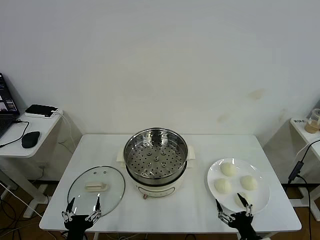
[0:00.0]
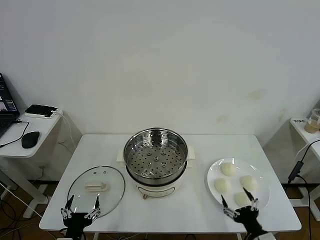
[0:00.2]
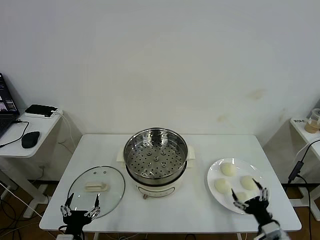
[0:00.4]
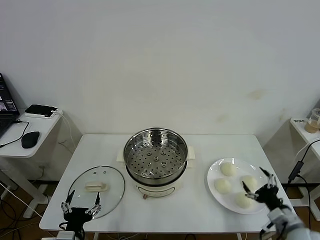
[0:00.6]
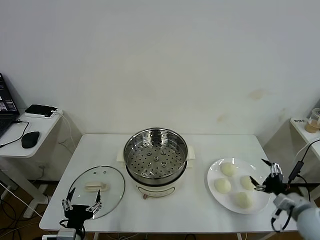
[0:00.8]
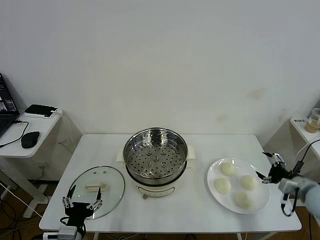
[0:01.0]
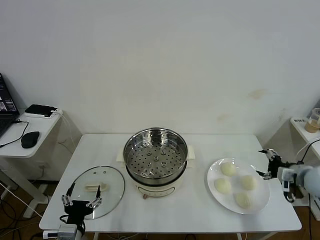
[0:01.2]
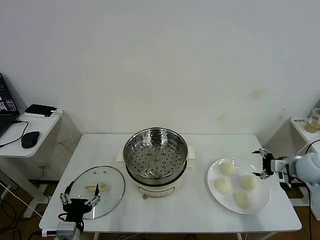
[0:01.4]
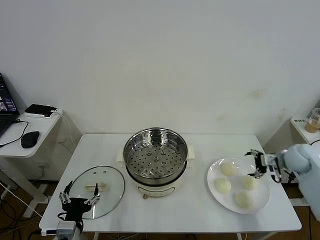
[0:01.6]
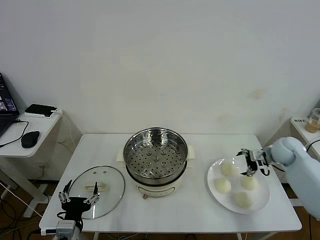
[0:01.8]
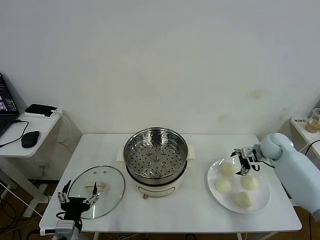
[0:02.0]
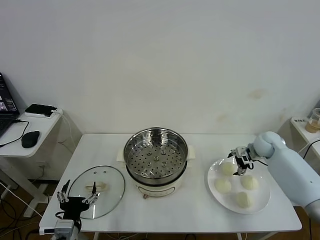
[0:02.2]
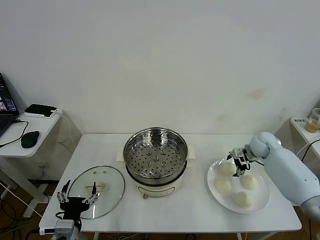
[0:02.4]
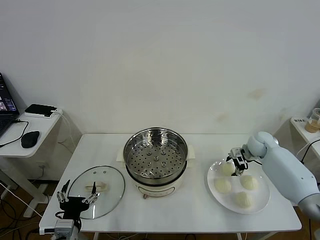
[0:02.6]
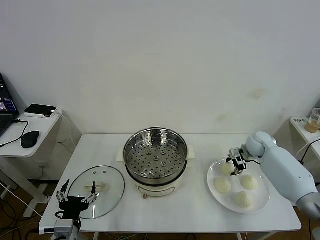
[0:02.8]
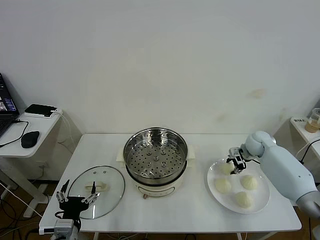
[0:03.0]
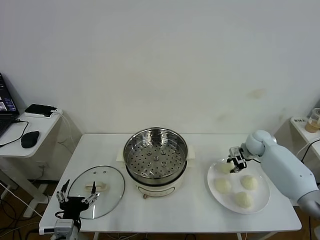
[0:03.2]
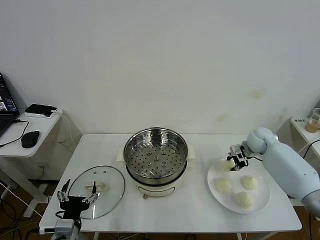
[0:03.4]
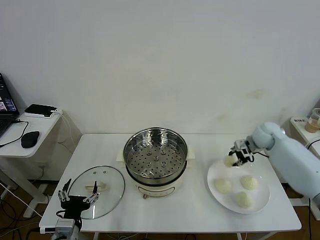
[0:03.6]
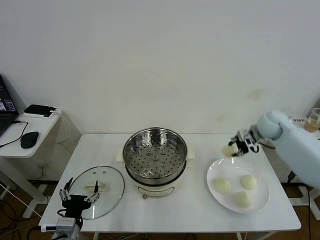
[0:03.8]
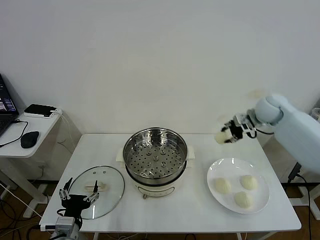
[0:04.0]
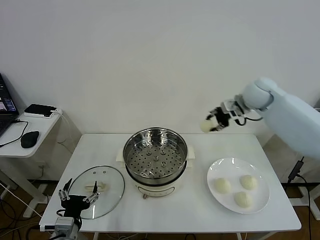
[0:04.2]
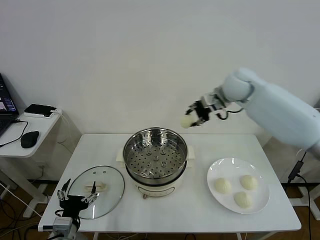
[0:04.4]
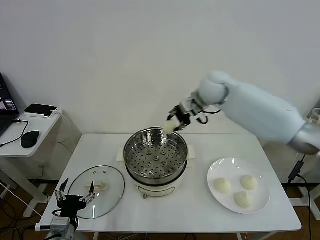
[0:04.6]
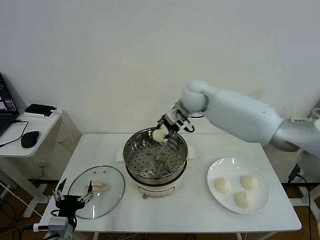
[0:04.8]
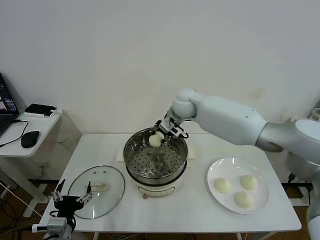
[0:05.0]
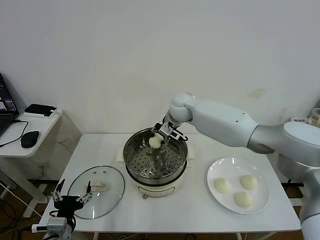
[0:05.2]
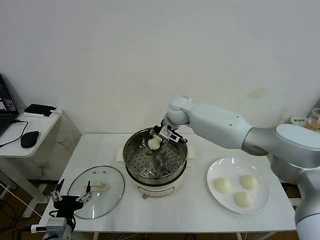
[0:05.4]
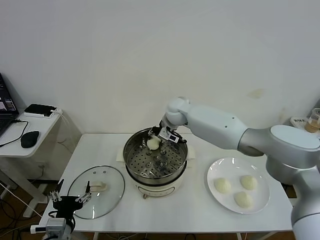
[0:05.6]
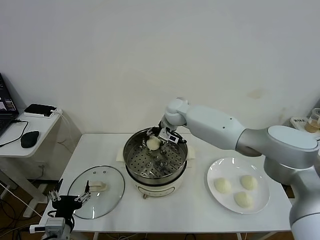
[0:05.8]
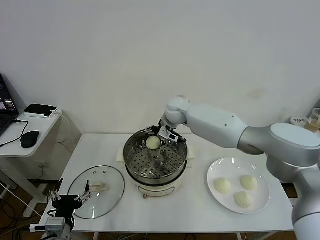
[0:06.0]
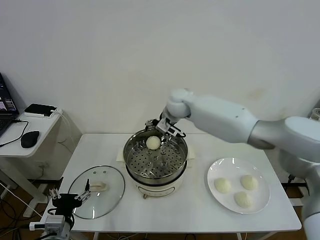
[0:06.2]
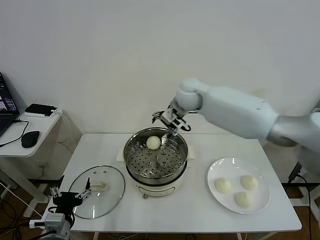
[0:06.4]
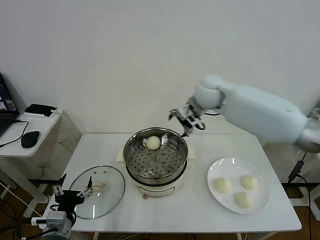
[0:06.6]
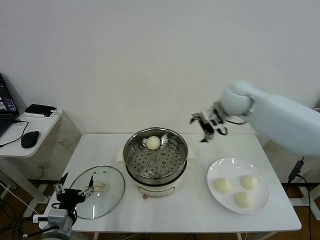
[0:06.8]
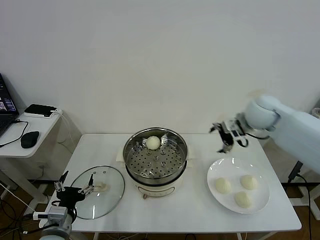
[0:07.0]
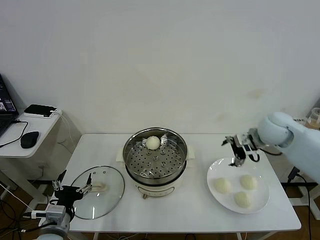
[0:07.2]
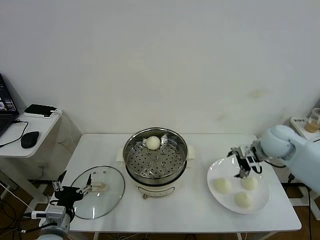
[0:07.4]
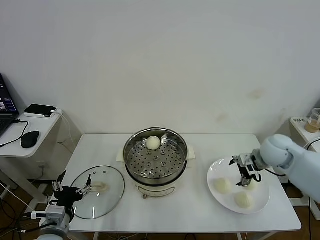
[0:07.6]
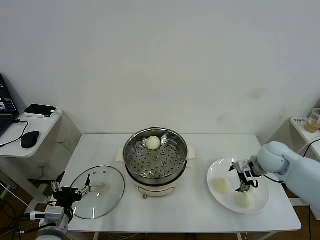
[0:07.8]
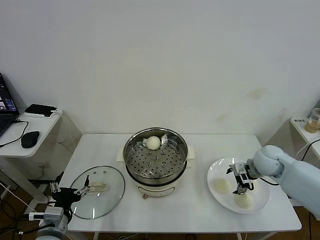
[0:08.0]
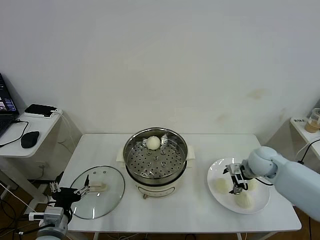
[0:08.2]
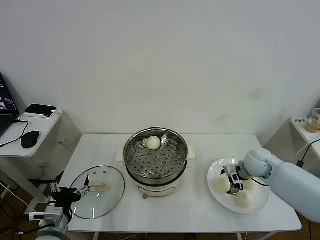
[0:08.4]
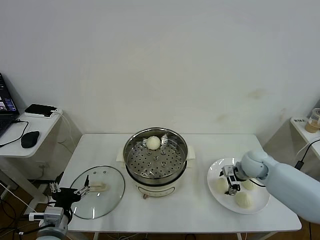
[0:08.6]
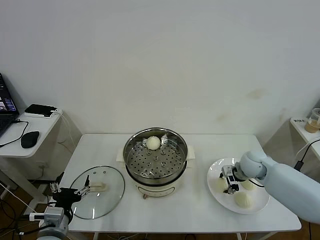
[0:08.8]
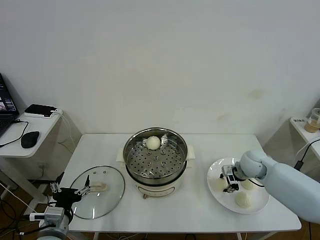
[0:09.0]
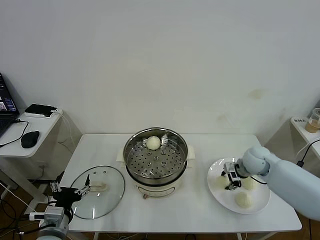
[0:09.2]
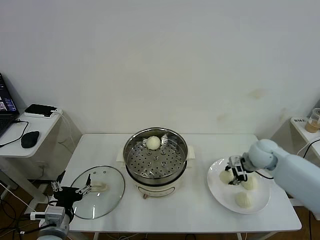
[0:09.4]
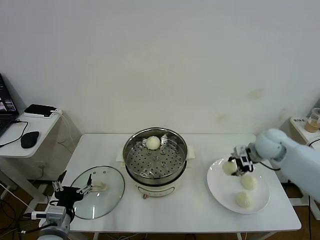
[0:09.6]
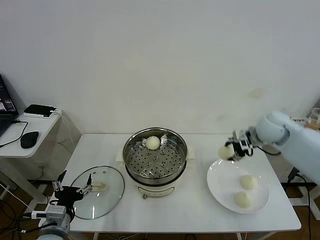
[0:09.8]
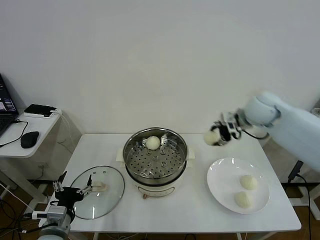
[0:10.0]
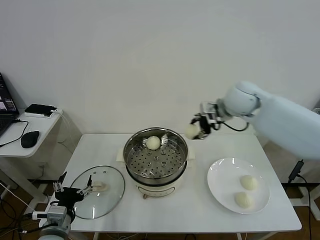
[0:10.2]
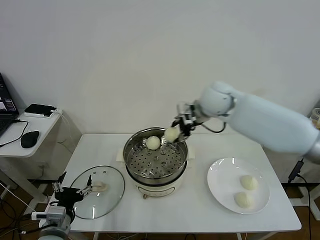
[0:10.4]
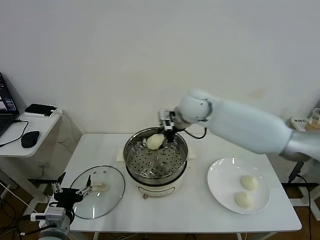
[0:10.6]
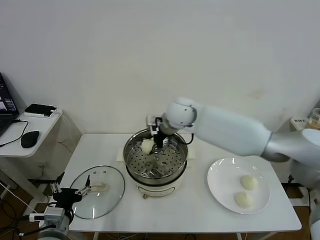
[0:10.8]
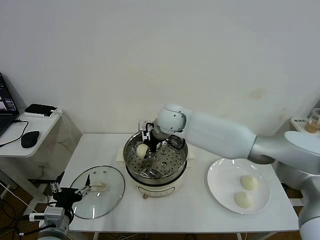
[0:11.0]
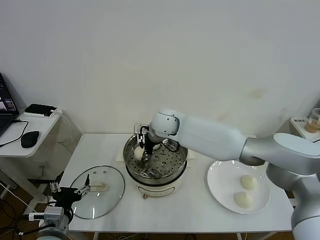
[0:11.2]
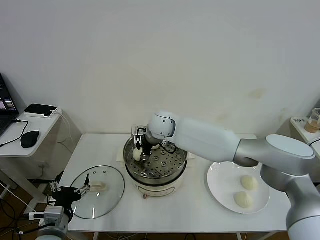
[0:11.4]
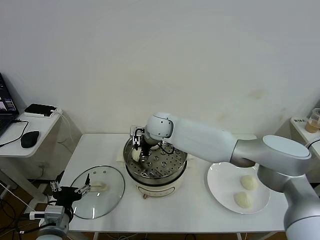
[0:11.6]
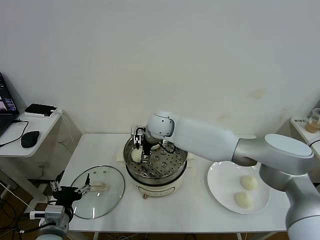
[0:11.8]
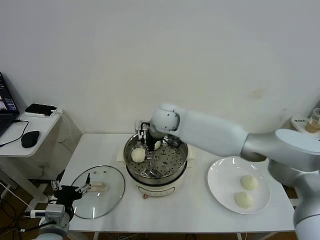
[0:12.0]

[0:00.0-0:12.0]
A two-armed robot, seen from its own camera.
Task of the whole recording: take steamed baozi put them in steamer then cover it.
Step, 0:00.0 to 0:03.0: Grasp the baozi in the plate with right gripper.
Step, 0:03.2 to 0:06.0: Place the baozi on the steamer with right gripper.
Step, 0:06.2 to 0:09.2: Grasp the baozi in the plate with right gripper.
Step, 0:09.4 to 0:12.0: Place the baozi on the steamer with right gripper.
0:01.6 to 0:03.0: The right gripper travels forward and to the left by some 10 cm, and closes up.
0:03.0 to 0:04.4: The right gripper travels upward and to the left by some 30 cm.
0:04.4 to 0:06.0: The right gripper travels to the left and downward by some 15 cm, and opens.
0:06.0 to 0:07.6: The right gripper travels to the right and backward by about 35 cm.
0:07.6 to 0:09.0: The right gripper shifts some 10 cm downward, and closes.
0:09.0 to 0:10.4: The right gripper is displaced upward and to the left by approximately 30 cm.
0:10.4 to 0:12.0: The right gripper goes approximately 15 cm to the left and downward, and opens.

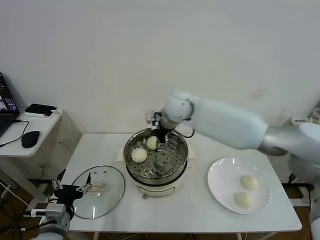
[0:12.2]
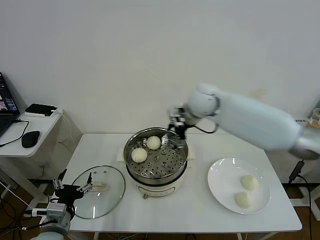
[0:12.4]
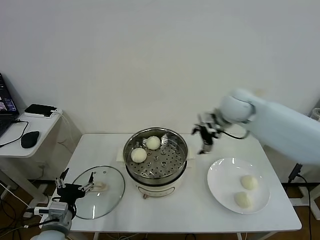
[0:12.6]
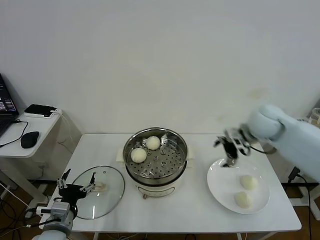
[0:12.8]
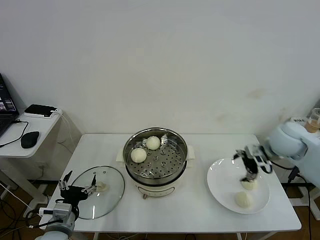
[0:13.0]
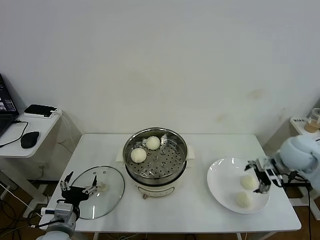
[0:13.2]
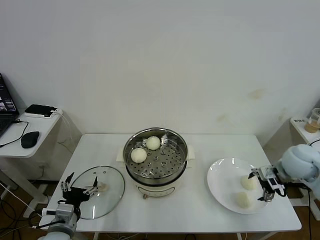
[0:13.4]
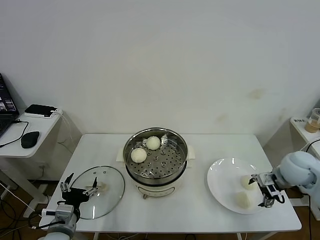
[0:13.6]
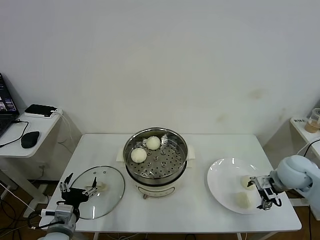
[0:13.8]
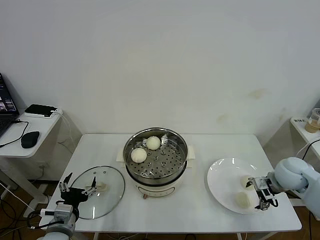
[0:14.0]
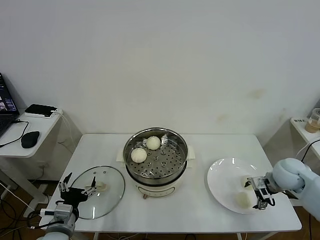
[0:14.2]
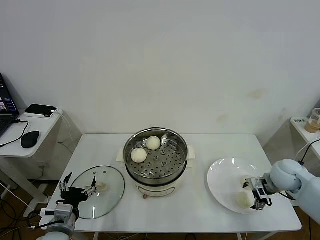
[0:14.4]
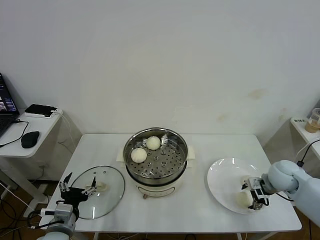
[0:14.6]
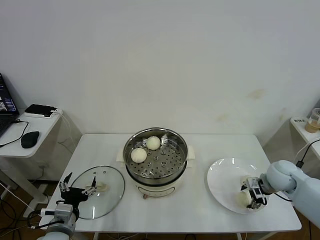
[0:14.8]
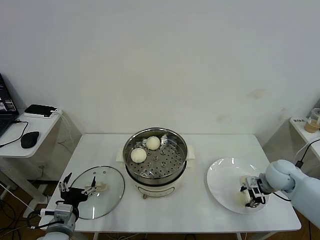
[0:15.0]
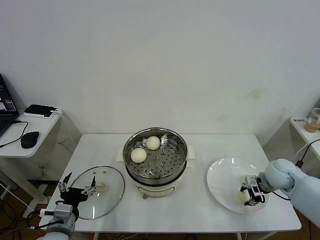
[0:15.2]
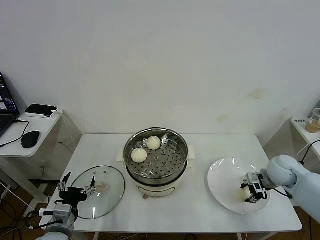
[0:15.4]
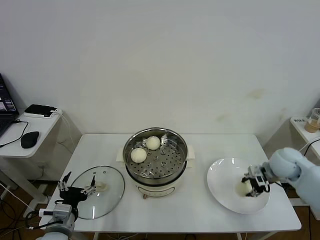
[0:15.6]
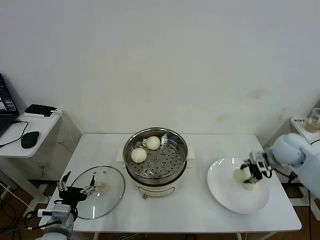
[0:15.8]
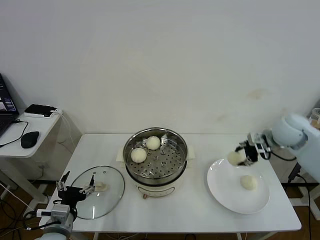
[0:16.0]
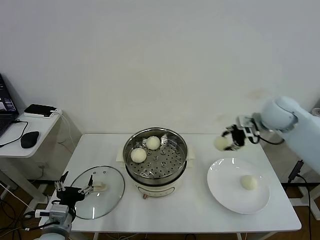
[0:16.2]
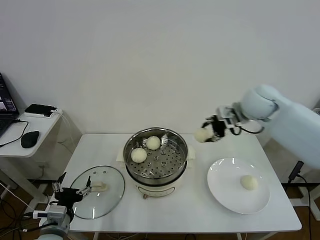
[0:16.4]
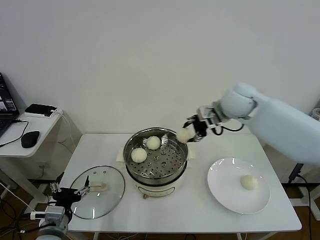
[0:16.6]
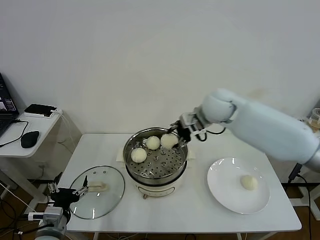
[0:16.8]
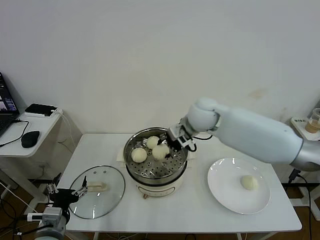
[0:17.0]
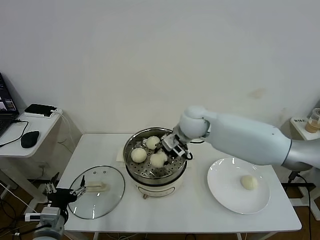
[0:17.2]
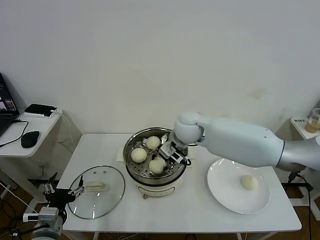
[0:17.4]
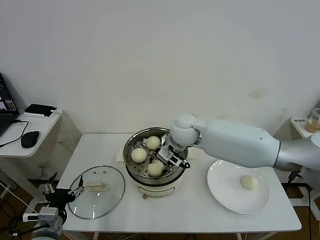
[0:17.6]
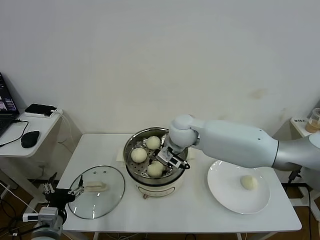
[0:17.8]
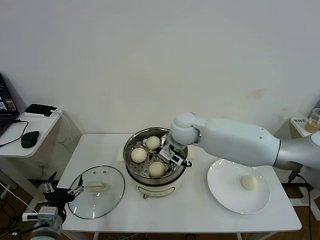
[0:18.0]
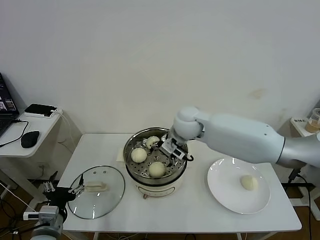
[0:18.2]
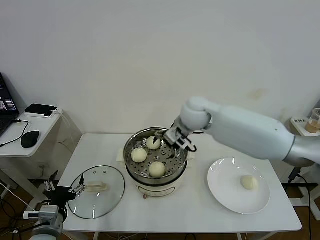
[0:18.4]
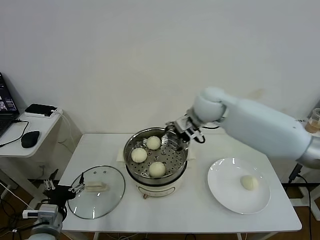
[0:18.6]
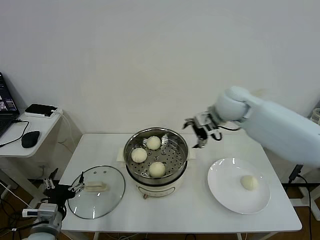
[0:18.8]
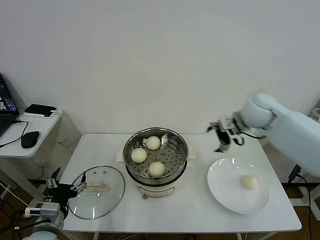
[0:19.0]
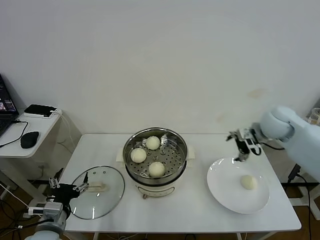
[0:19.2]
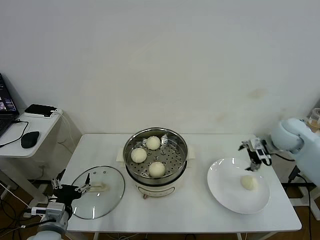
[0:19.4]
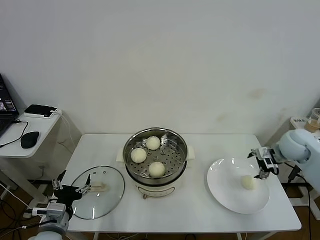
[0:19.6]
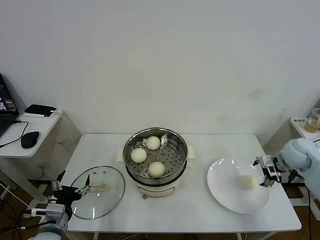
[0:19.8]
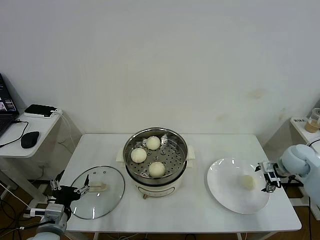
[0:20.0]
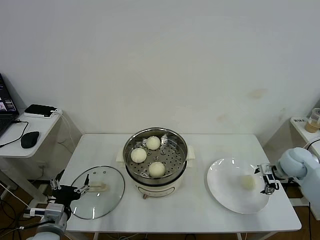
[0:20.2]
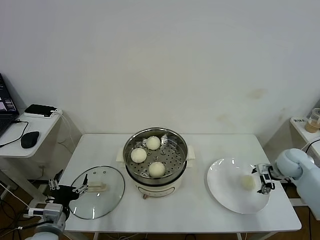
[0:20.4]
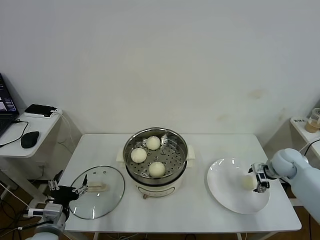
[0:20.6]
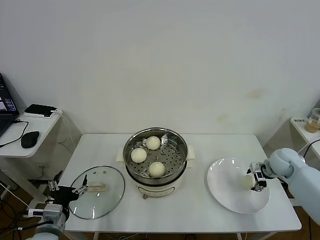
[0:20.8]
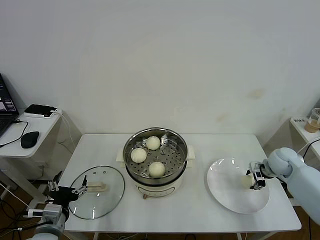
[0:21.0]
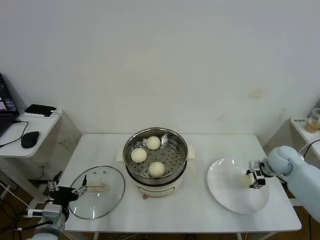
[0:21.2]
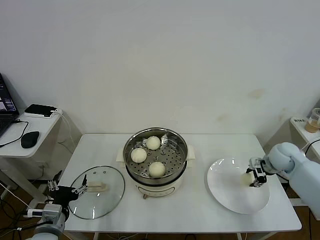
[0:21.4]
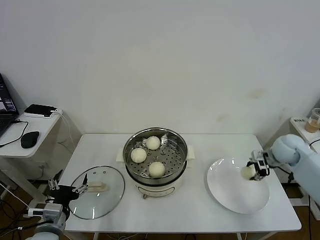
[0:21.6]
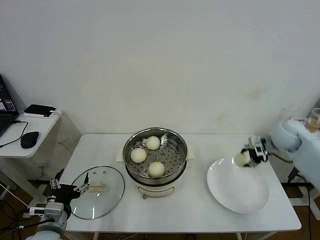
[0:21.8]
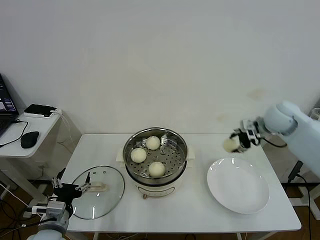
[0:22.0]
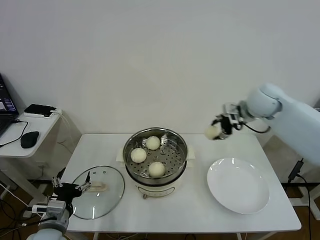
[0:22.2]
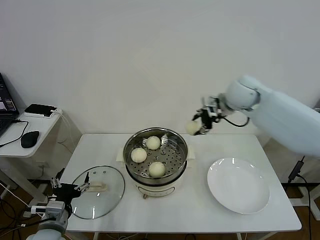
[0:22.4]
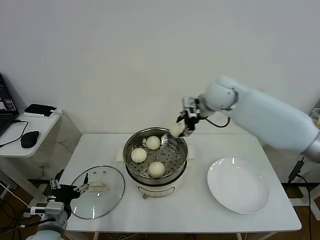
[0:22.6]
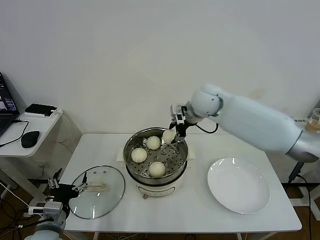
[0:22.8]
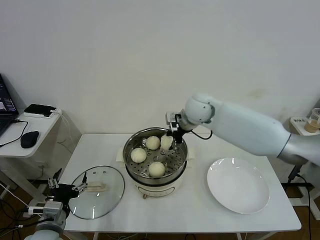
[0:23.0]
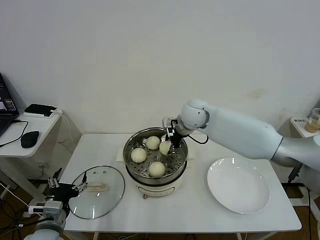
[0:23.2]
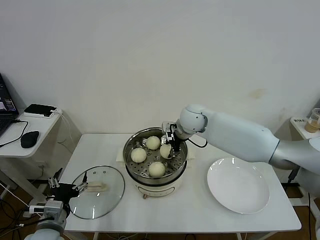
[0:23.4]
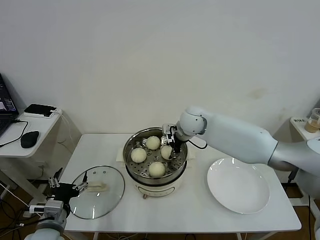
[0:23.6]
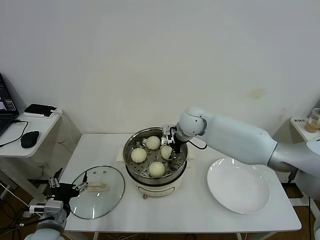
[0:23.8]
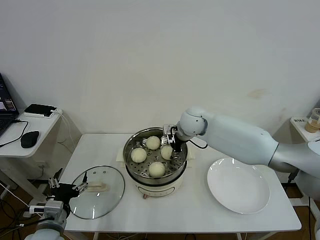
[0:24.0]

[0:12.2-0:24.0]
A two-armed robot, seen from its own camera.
Task of the whole recording: take steamed baozi put them in steamer then cover it.
Step, 0:12.2 to 0:15.4: Grasp the baozi in the plate with right gripper.
Step, 0:15.6 to 0:18.2: Place the baozi on the steamer with right gripper.
Step, 0:18.4 to 0:21.4: Grasp the baozi in the plate with right gripper.
0:12.2 to 0:13.6: The right gripper is displaced to the right and backward by roughly 35 cm.
0:13.6 to 0:15.2: The right gripper is displaced downward by some 5 cm, and closes.
0:15.2 to 0:16.6: The right gripper goes approximately 30 cm upward, to the left and forward.
0:16.6 to 0:18.2: The right gripper goes some 15 cm to the left and downward, and opens its fingers.
0:18.2 to 0:19.6: The right gripper travels to the right by roughly 35 cm.
0:19.6 to 0:21.0: The right gripper is displaced downward by roughly 10 cm, and closes.
0:21.0 to 0:22.6: The right gripper moves to the left and upward, approximately 35 cm.
0:22.6 to 0:24.0: The right gripper shifts about 10 cm downward and to the left.
